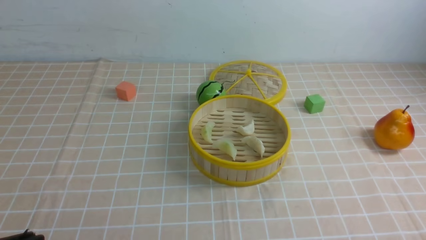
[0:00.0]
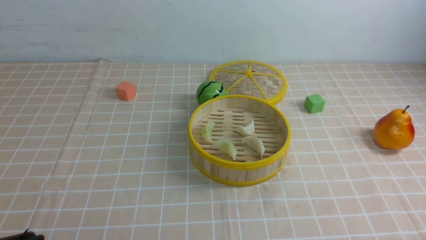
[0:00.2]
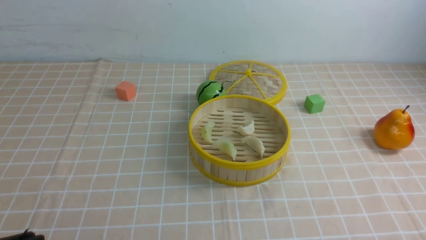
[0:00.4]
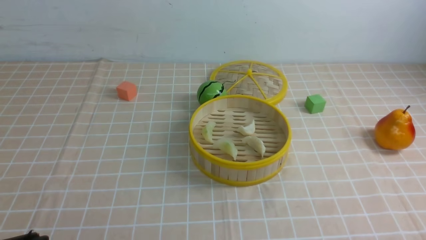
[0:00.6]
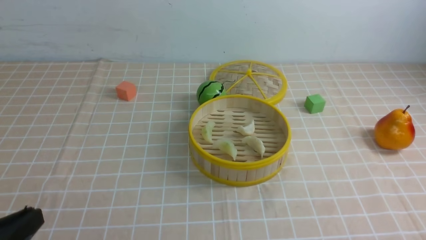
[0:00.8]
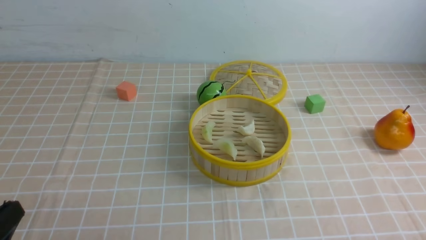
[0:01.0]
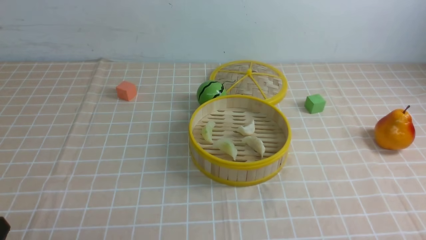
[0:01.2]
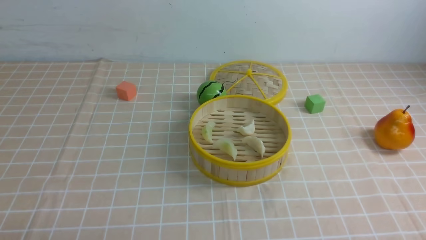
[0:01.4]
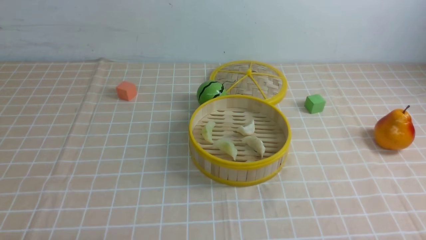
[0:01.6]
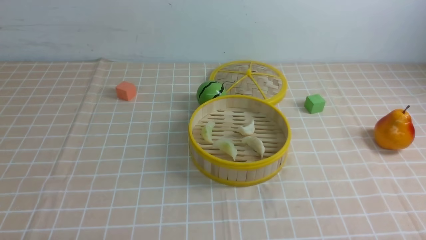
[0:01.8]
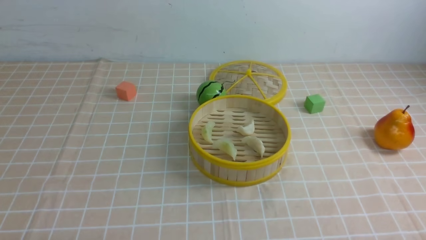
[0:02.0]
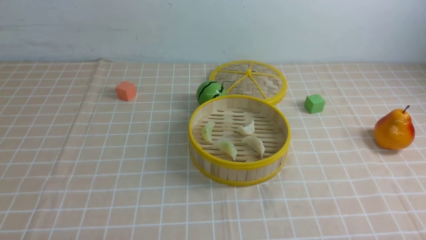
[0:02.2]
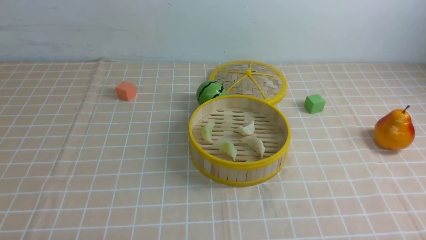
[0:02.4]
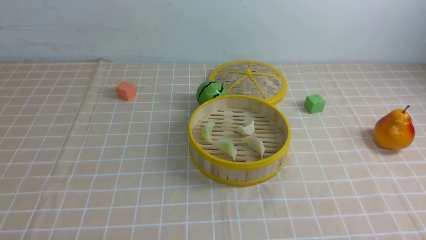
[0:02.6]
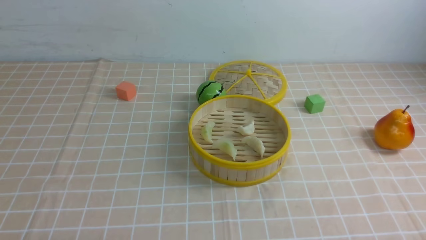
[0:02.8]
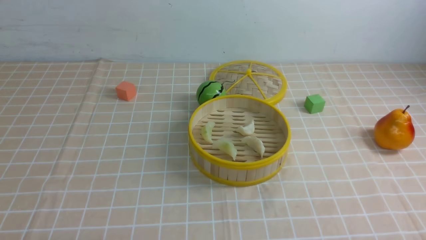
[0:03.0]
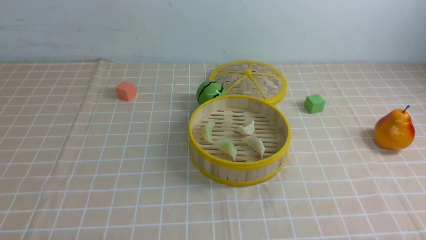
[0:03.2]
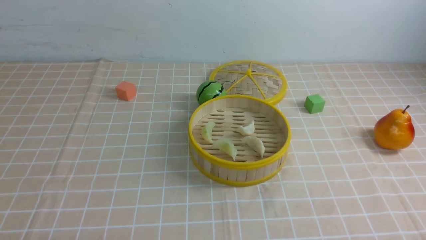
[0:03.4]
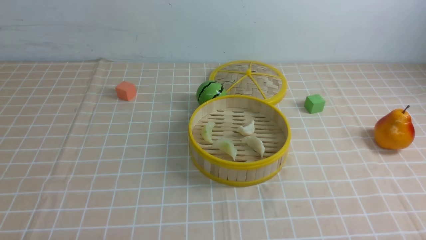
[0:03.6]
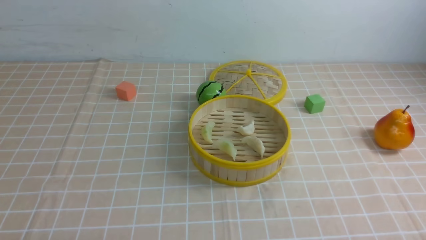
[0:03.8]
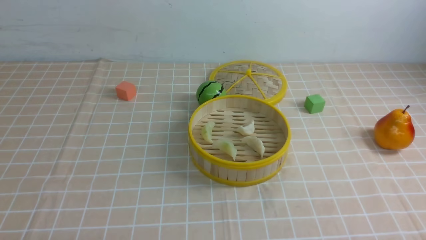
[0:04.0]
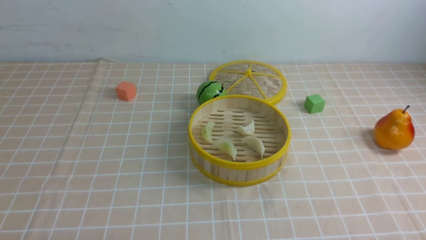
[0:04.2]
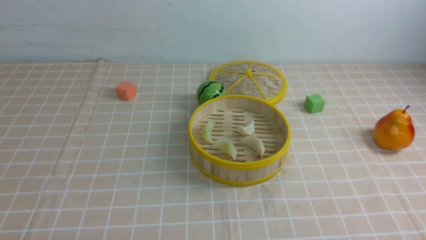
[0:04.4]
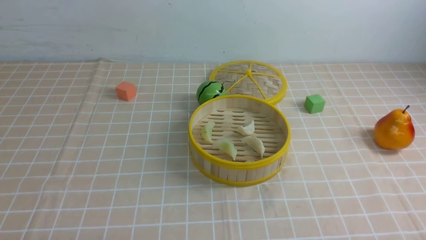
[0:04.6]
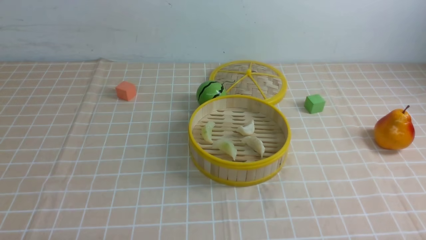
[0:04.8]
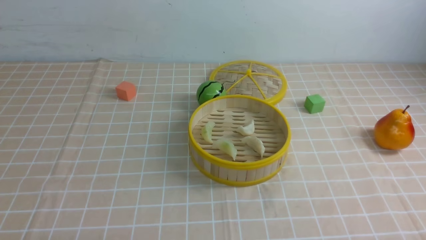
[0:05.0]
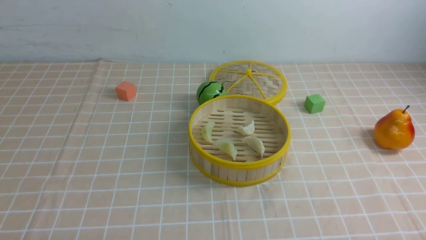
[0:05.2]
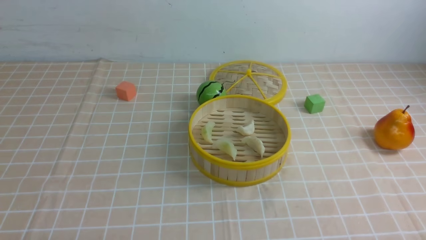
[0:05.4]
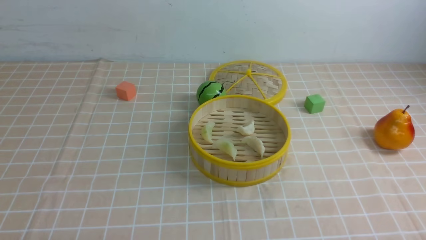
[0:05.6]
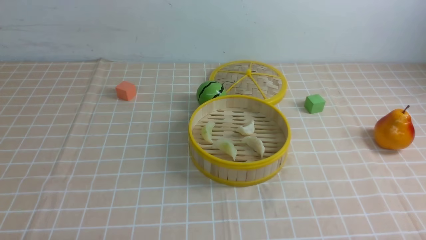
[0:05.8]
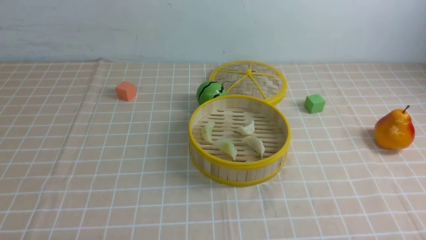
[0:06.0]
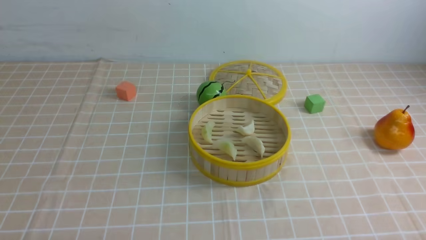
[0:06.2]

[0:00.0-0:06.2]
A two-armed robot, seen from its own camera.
Task of the whole recording: put the dumplings into the steamer on the table with the brown tablecloth.
0:01.6 to 0:06.2: Neither gripper changes place.
